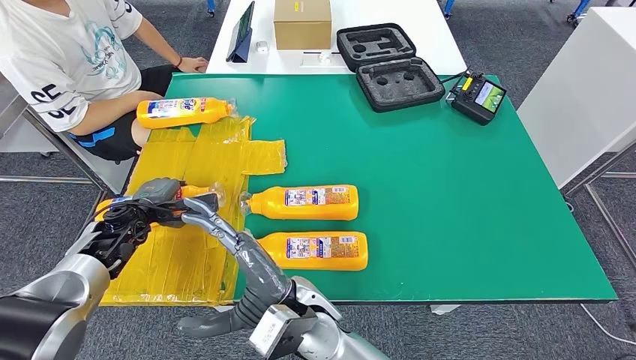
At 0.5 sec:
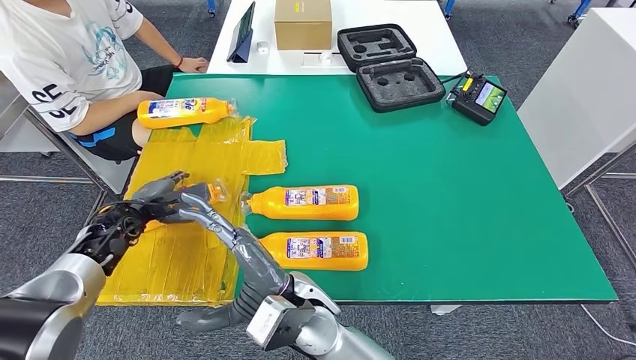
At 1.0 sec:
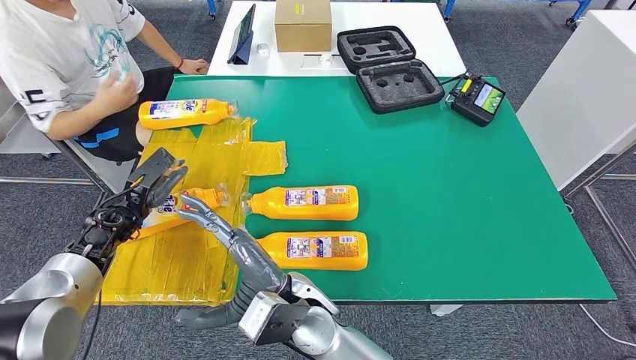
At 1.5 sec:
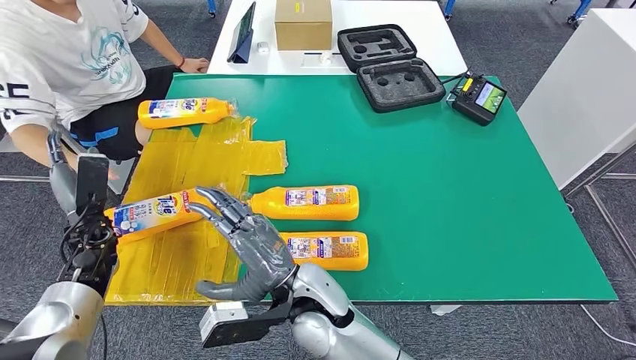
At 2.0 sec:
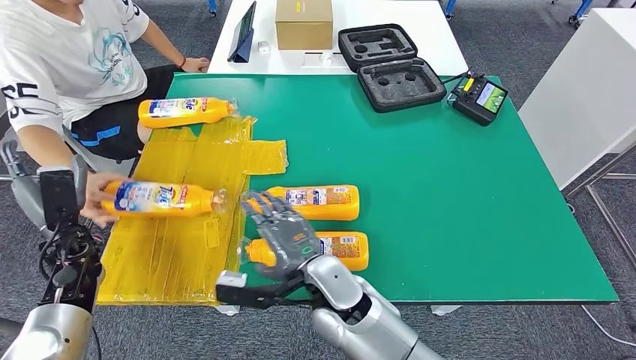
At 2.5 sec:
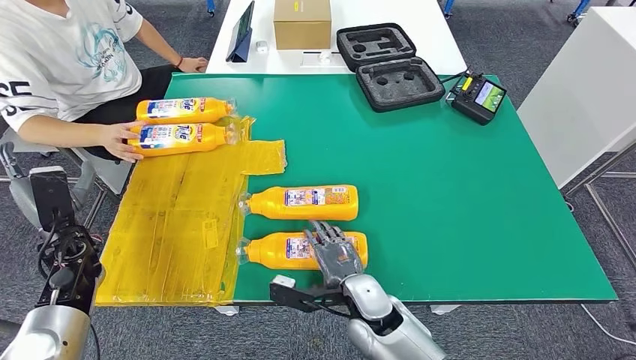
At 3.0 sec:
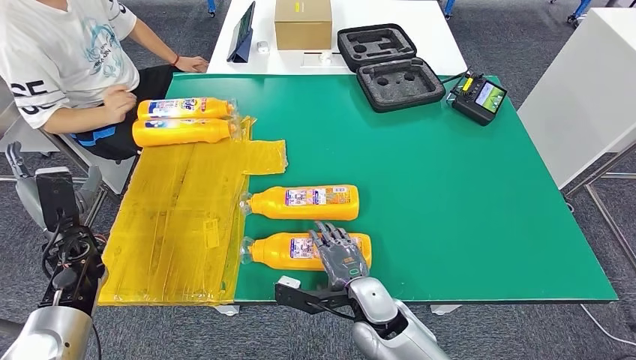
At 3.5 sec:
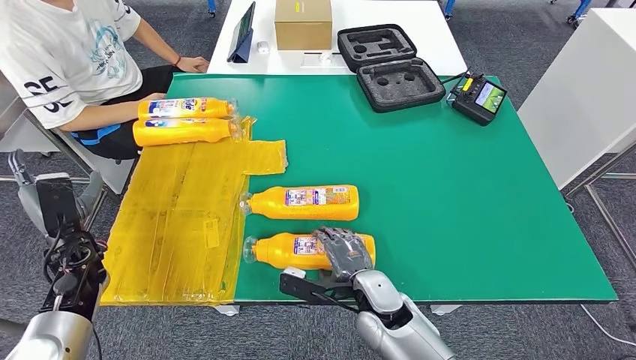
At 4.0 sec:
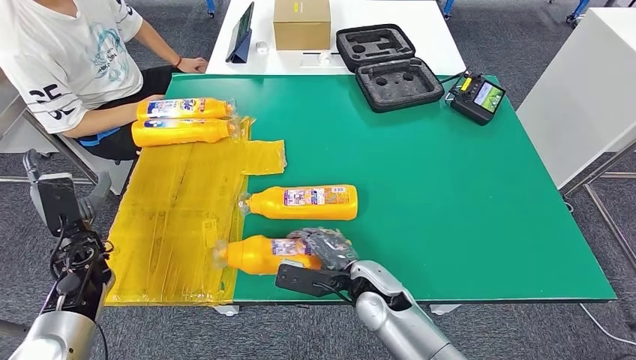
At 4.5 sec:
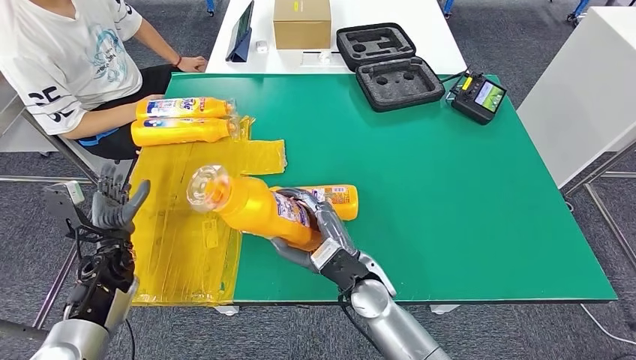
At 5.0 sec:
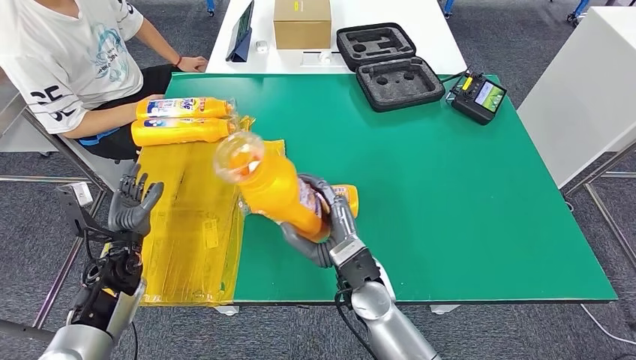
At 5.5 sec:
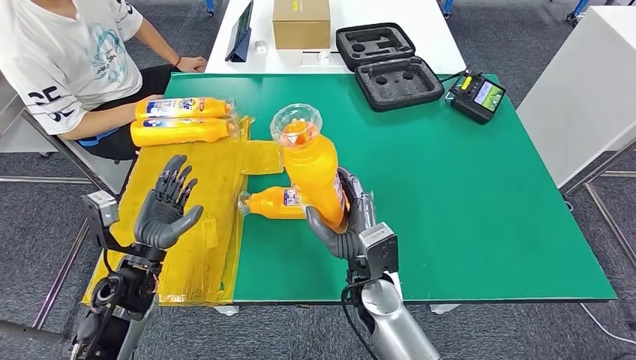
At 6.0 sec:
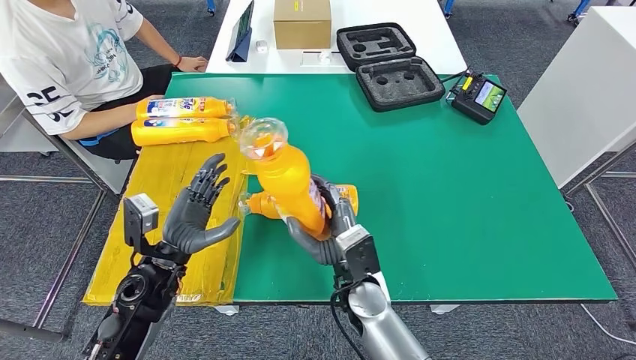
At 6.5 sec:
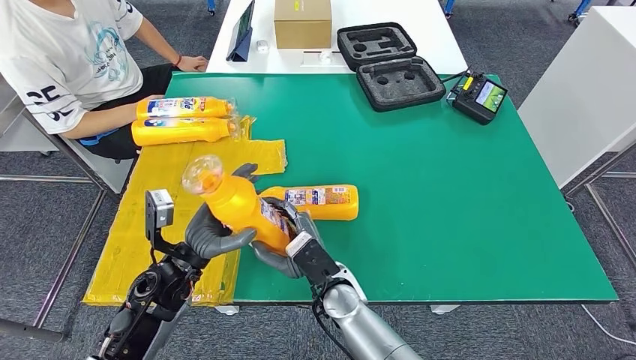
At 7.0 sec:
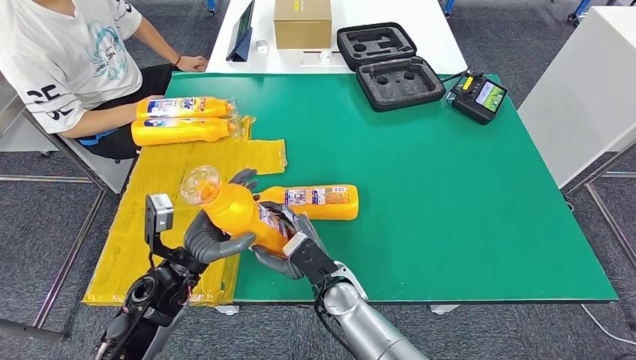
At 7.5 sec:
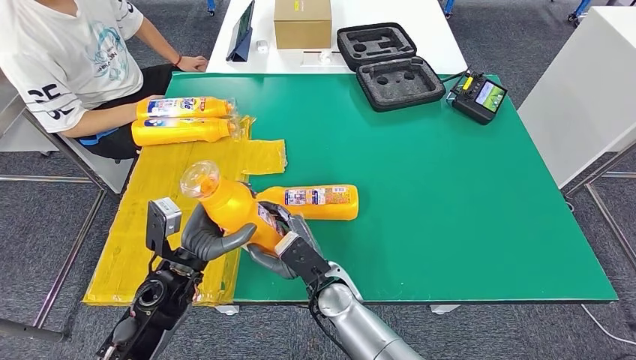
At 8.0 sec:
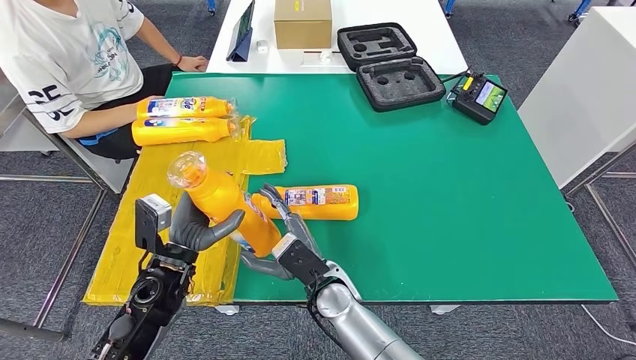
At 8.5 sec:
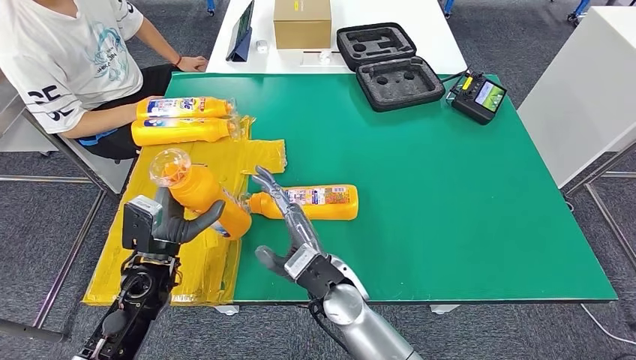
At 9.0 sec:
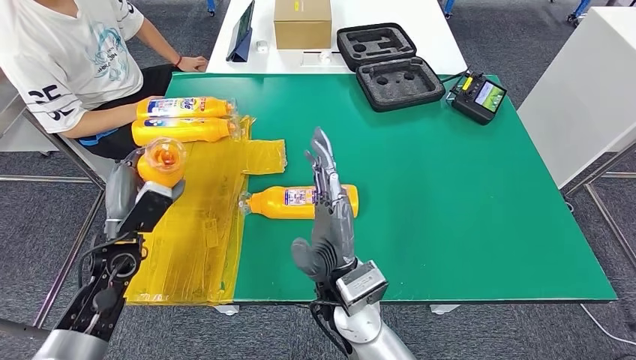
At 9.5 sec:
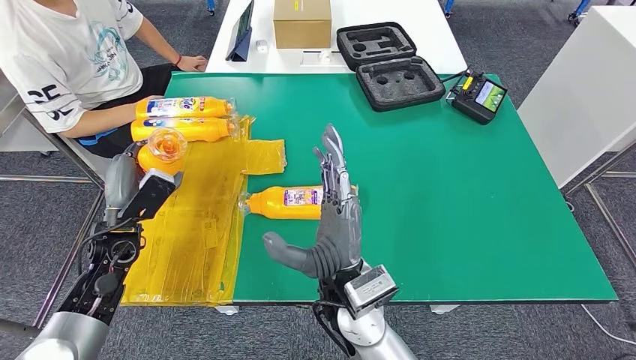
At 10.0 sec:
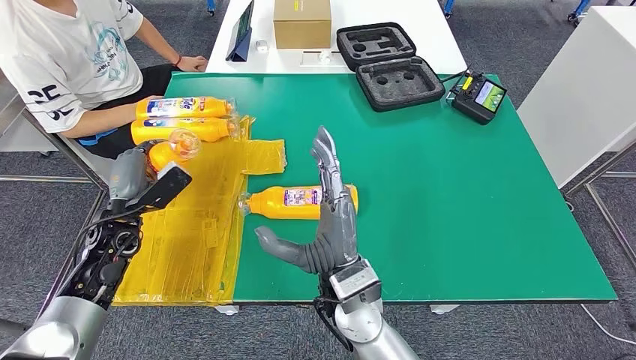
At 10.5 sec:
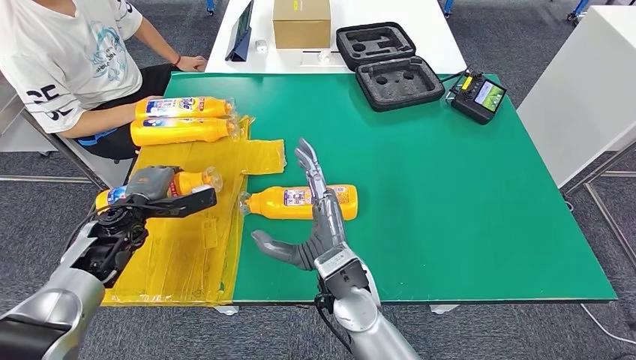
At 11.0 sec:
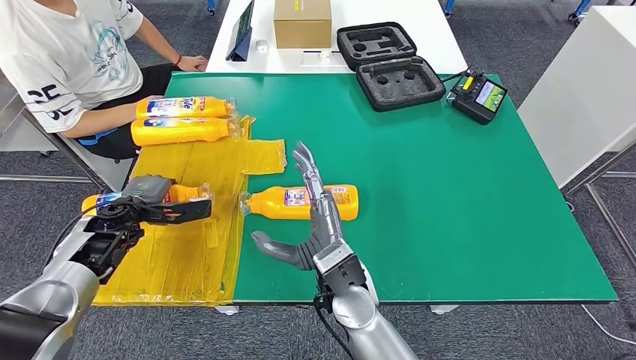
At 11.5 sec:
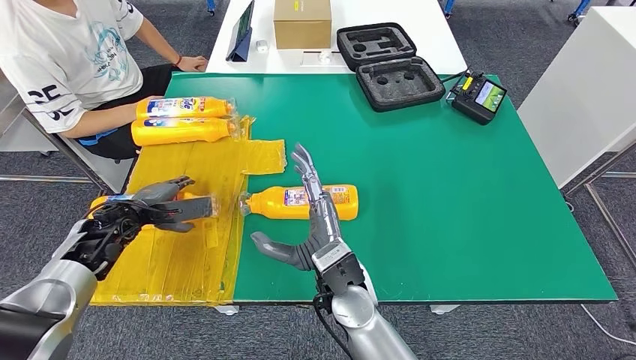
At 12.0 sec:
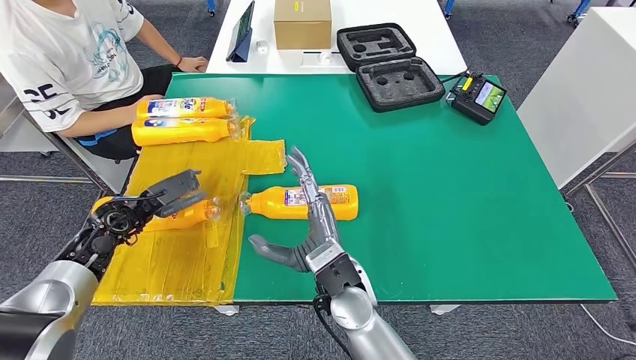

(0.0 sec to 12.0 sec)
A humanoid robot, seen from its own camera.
Step, 1.0 sec - 6.5 sec: Pick up the fast-moving consumer goods bottle from the table.
Step, 7.0 sec - 12.0 sec: Flip the fast-moving consumer goods bottle to the front side.
6.0 sec - 8.0 sec: The right hand is displaced to the left by some 5 cm.
8.0 sec - 10.0 sec: The left hand heads to the left and forward, covering approximately 15 cm. The right hand moves upward, roughly 10 cm.

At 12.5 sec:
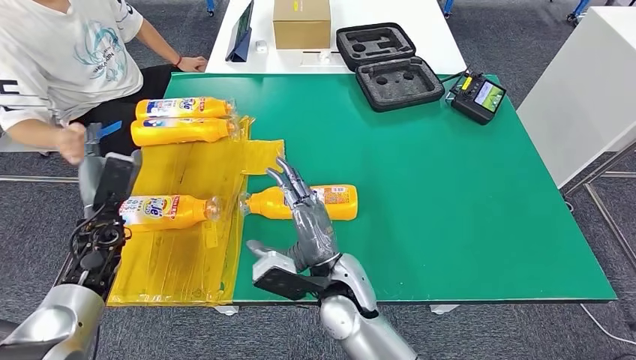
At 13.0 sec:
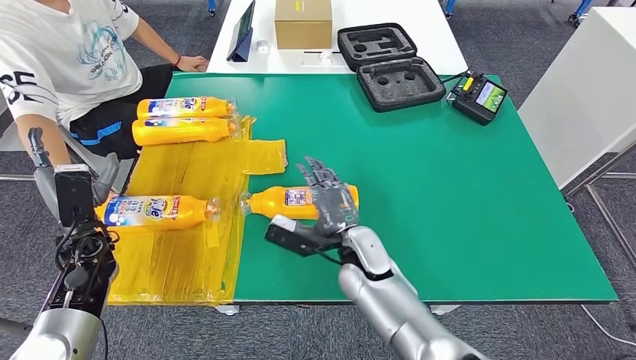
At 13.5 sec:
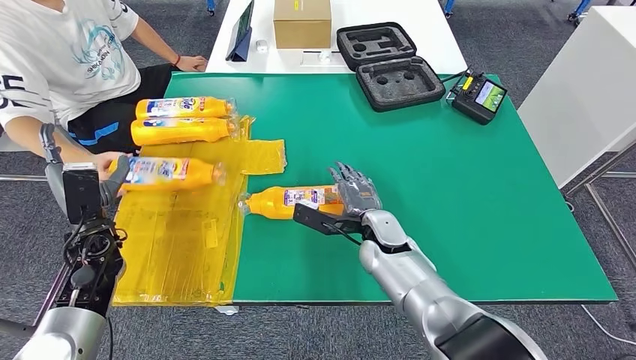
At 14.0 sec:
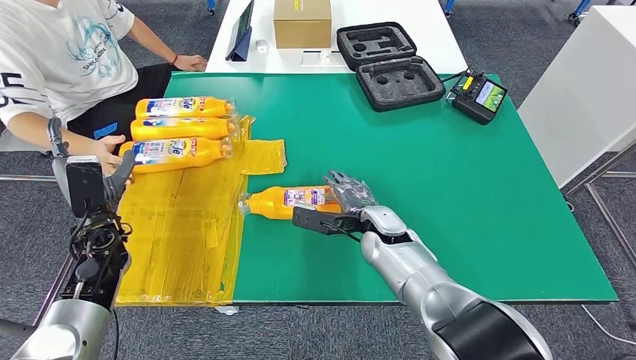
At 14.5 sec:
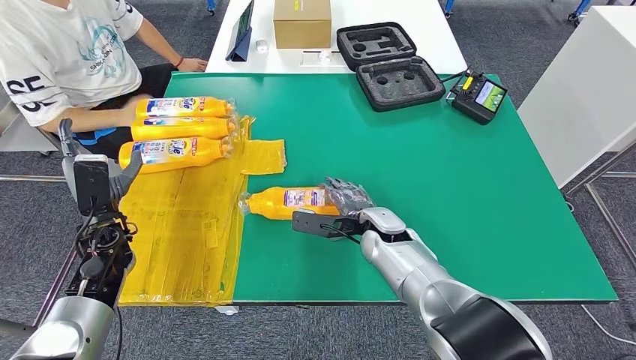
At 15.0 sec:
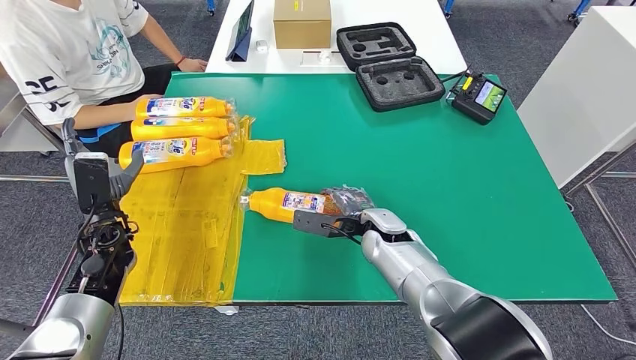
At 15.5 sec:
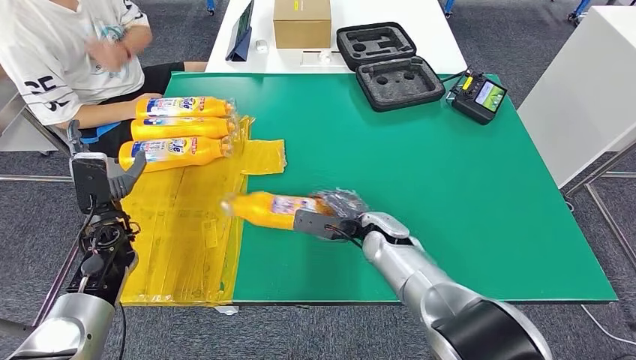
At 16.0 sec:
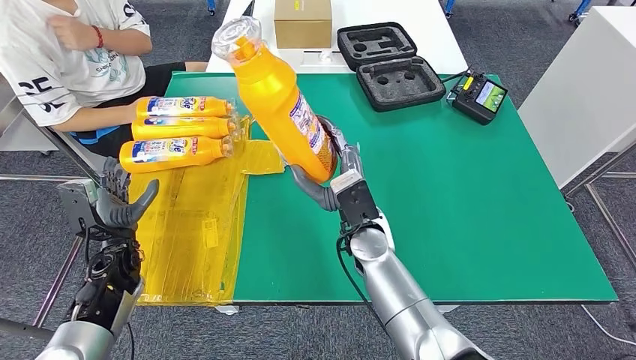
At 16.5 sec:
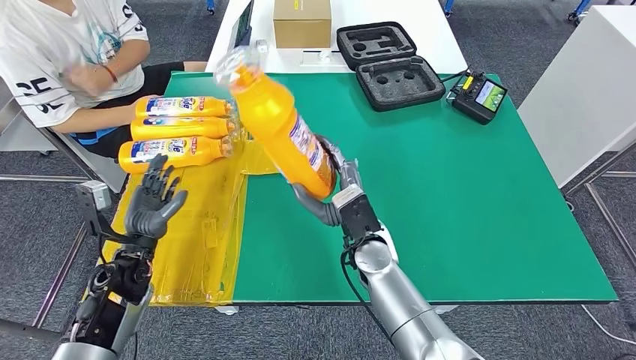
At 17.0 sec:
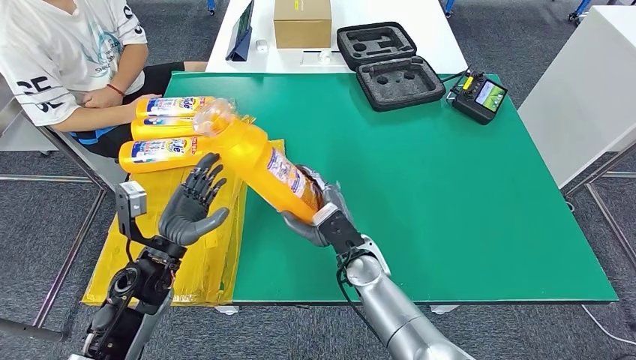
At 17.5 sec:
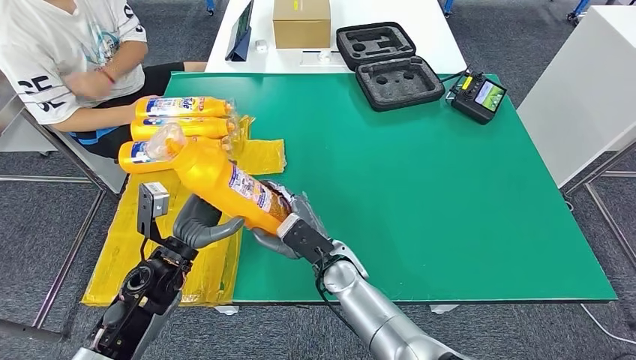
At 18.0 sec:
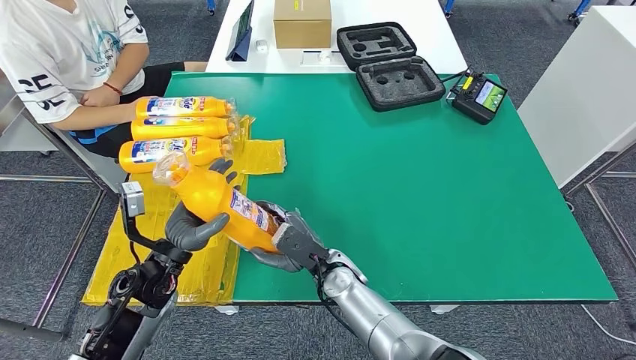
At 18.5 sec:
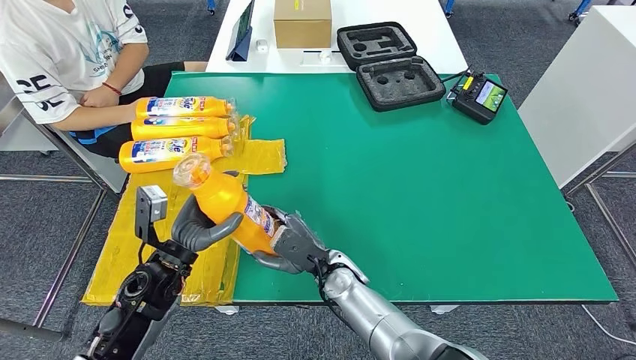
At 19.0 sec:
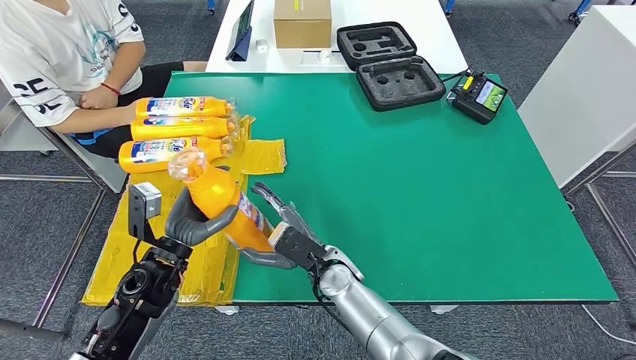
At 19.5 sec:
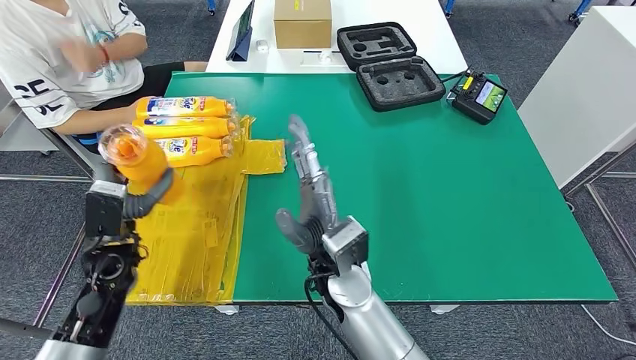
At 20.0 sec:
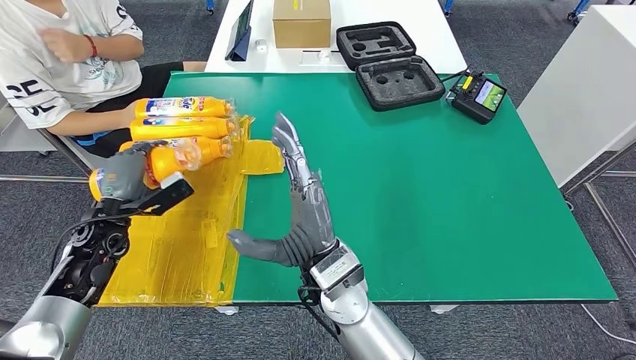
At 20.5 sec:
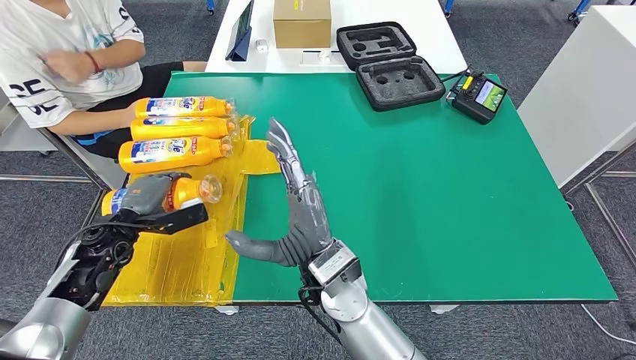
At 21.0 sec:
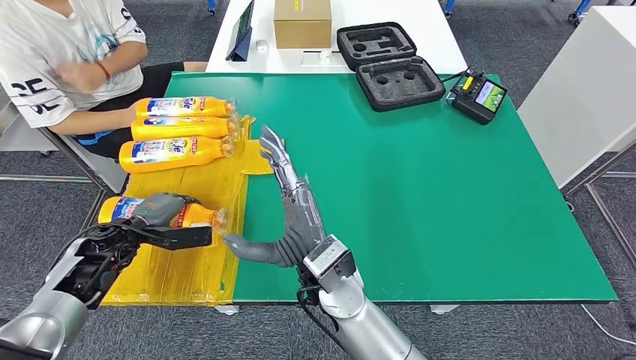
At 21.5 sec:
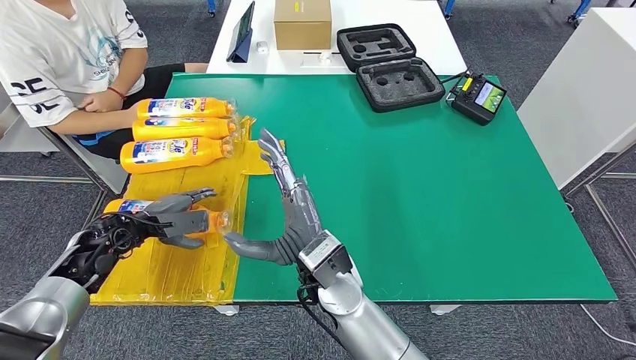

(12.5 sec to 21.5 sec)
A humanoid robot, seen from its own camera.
Step, 12.5 sec - 17.5 sec: Pick up the fast-moving consumer goods bottle from the table.
Step, 18.0 sec - 21.5 sec: Flip the fast-moving consumer goods bottle to the front side.
